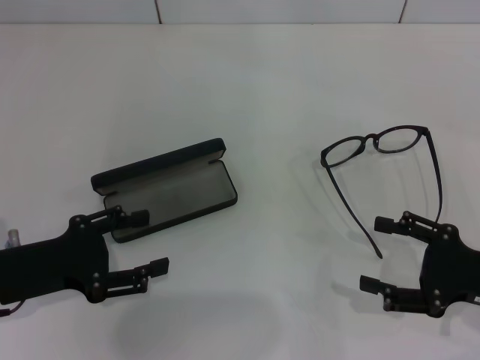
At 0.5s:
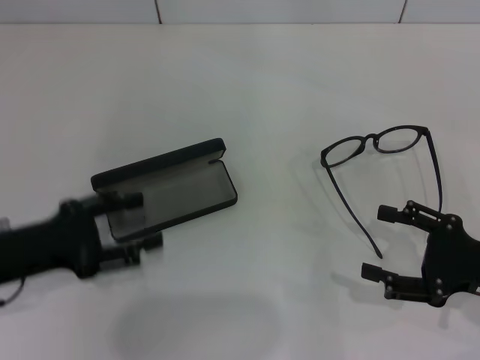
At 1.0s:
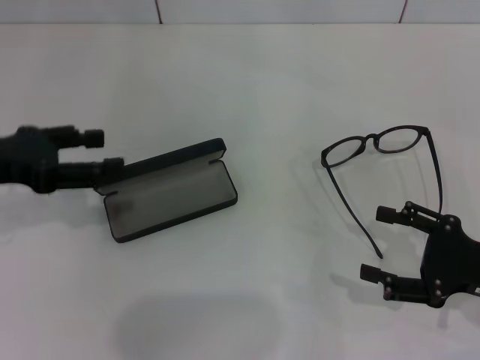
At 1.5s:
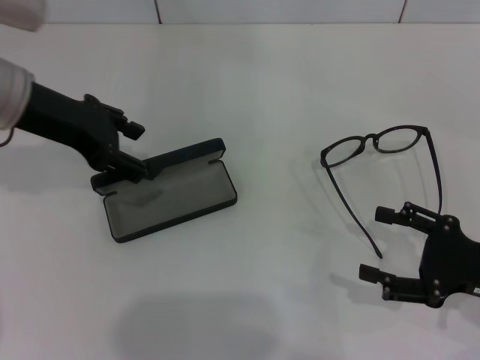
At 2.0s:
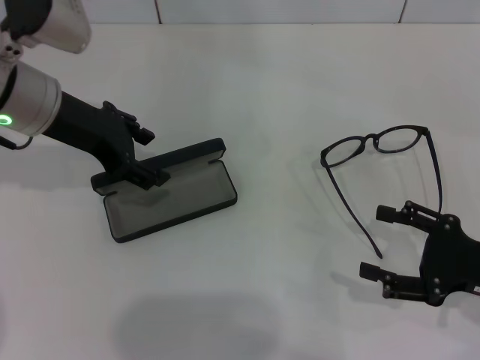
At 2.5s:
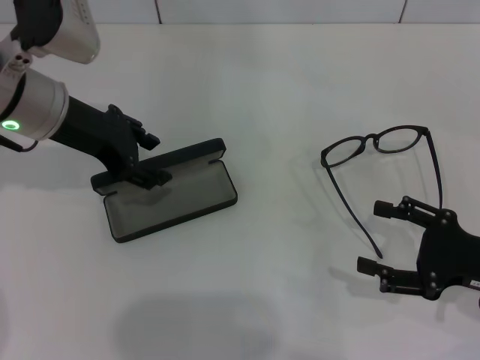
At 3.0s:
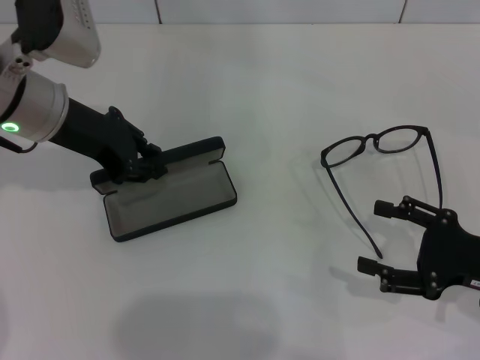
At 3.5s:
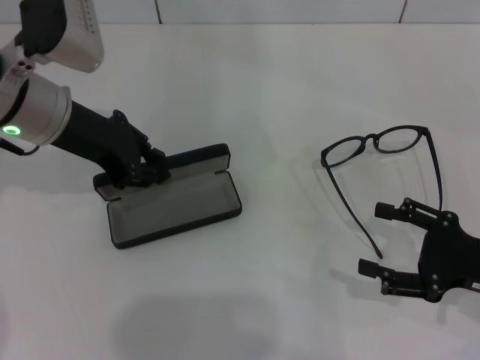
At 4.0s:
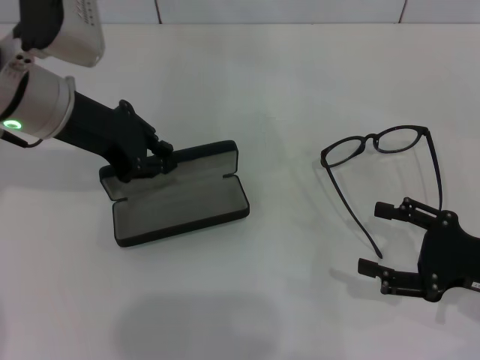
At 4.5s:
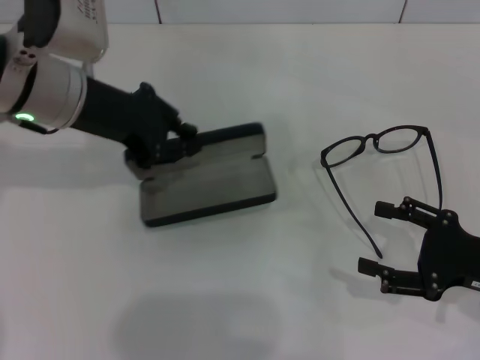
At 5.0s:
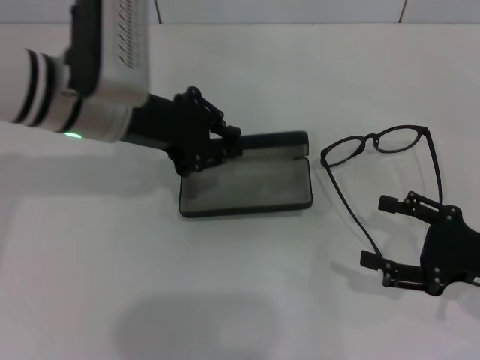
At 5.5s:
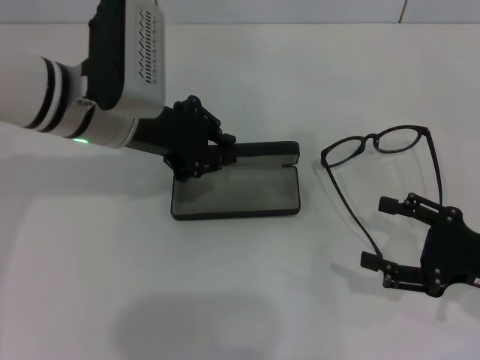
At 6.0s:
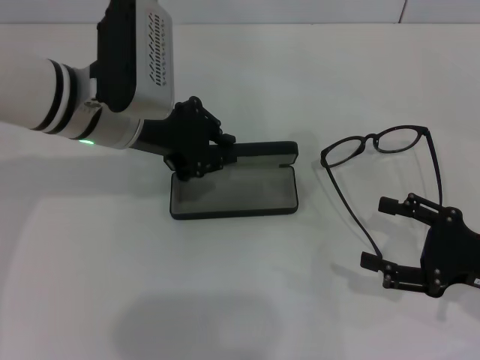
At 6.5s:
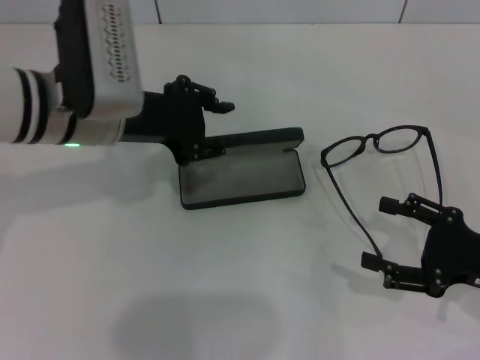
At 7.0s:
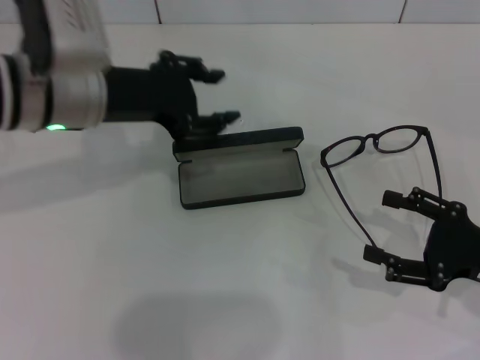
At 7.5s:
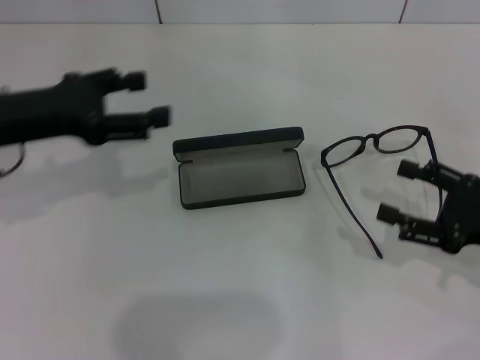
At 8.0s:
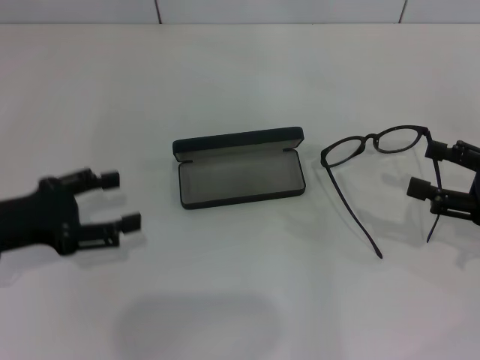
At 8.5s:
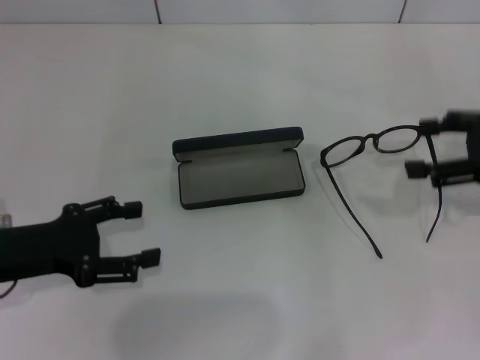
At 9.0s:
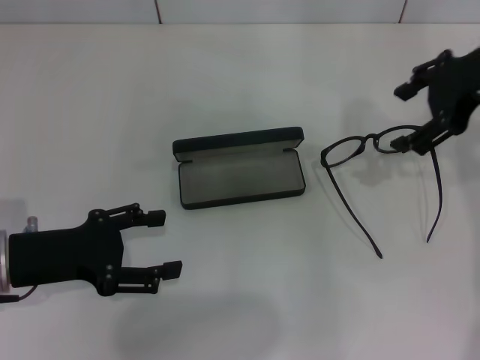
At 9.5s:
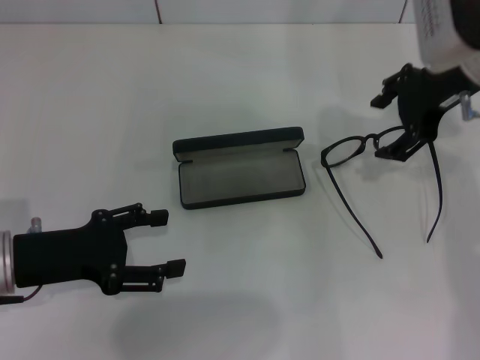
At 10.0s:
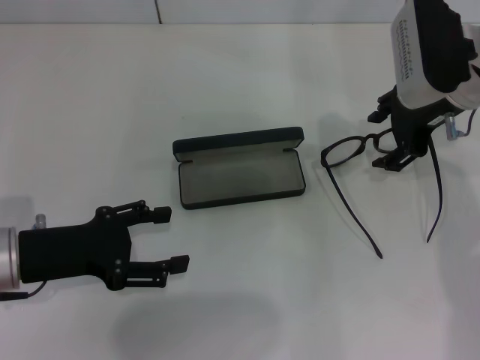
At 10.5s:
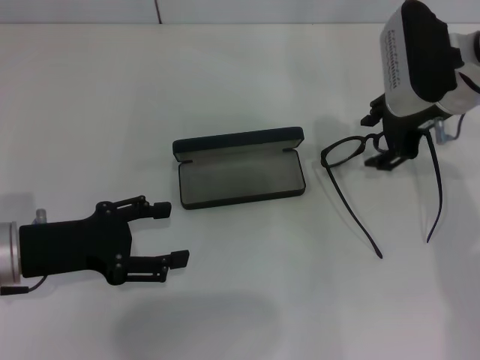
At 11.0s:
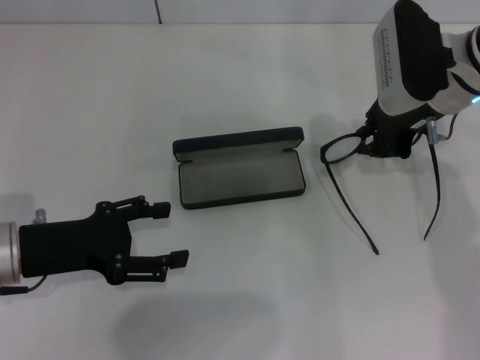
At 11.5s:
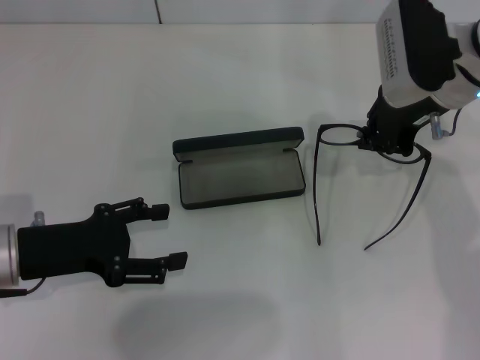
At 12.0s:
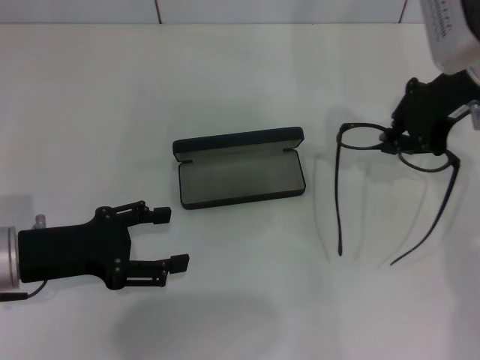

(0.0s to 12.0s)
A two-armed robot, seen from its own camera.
Step, 0.0s - 3.0s: Grab the glasses case with your left hand.
Step, 3.5s - 6.5s: Place the glasses case in the center of the table with your left hand.
Step, 7.0s - 11.0s: Grab the eyeglass frame with your right hand.
0.0s - 2.0s: The left gripper goes roughly 20 cm forward, upward and to the right.
2.0s - 4.0s: The left gripper closes up.
4.0s - 6.0s: The left gripper heads to the right, covering approximately 5 cm.
6.0s - 8.0s: The left gripper shifts roughly 20 cm to the left, backward and downward, and opens; the right gripper ends up approximately 5 cm from where it was.
8.0s - 10.0s: The right gripper goes approximately 20 cm to the left, forward and upward.
10.0s - 12.0s: The right gripper closes up.

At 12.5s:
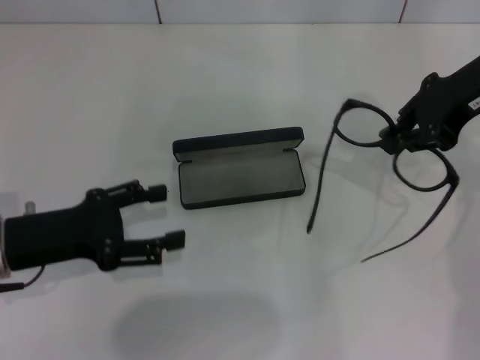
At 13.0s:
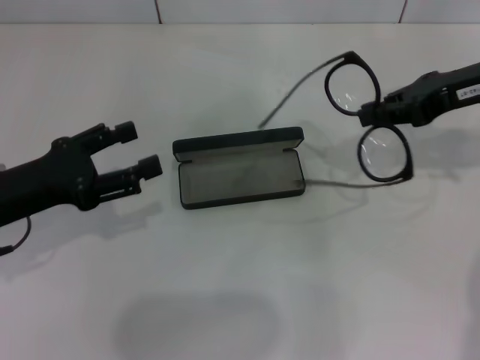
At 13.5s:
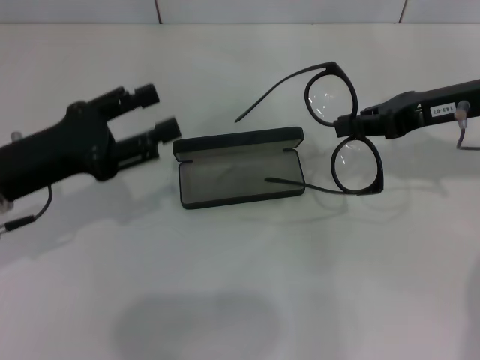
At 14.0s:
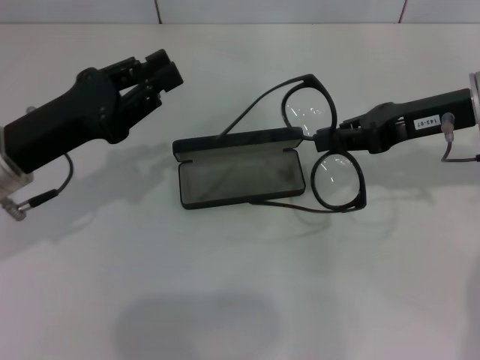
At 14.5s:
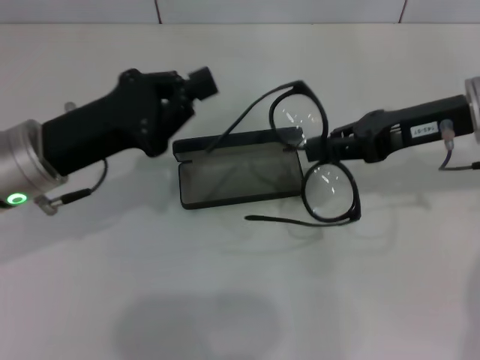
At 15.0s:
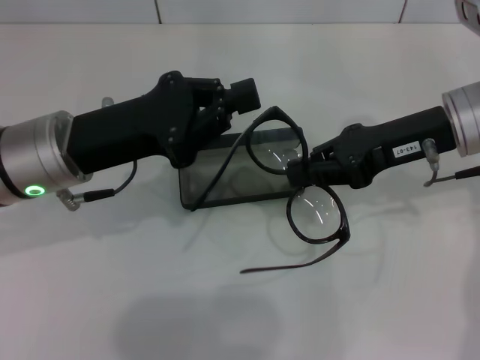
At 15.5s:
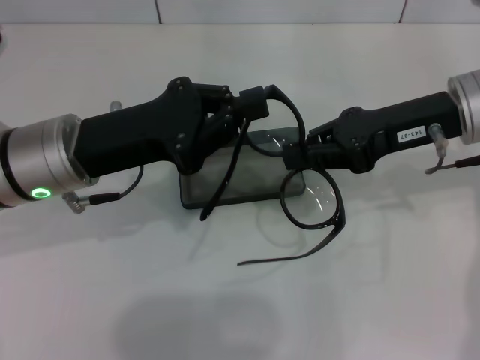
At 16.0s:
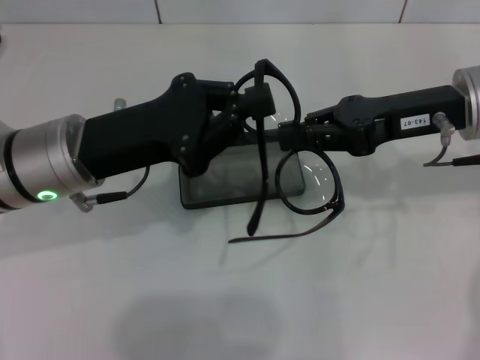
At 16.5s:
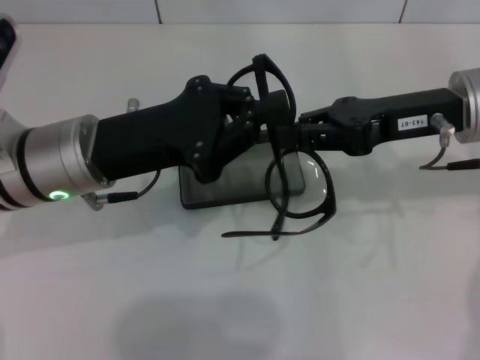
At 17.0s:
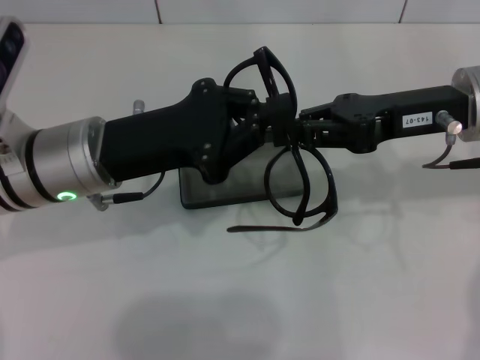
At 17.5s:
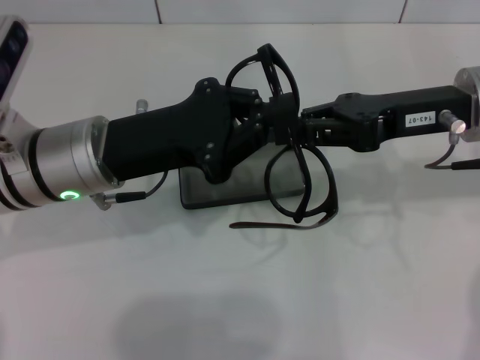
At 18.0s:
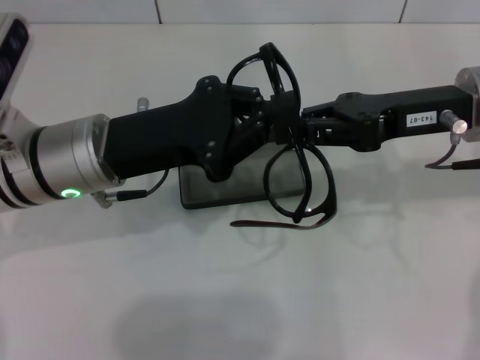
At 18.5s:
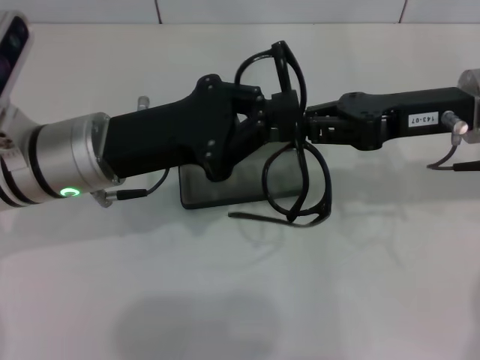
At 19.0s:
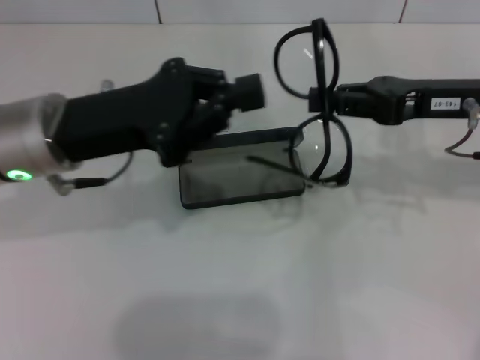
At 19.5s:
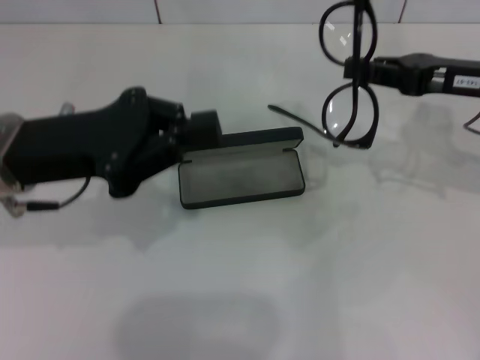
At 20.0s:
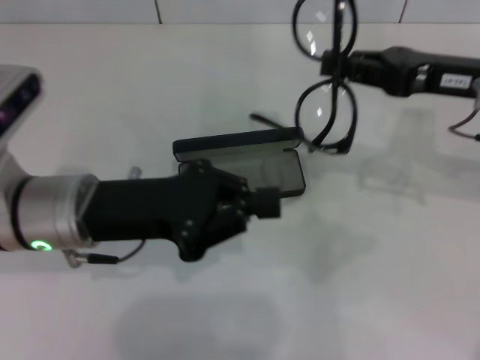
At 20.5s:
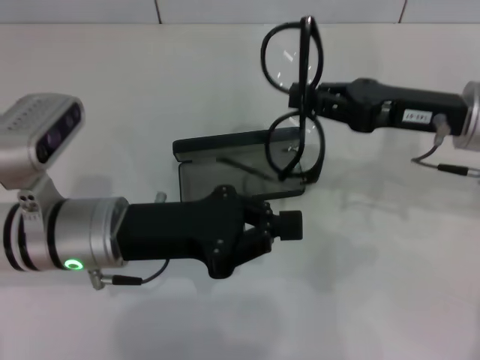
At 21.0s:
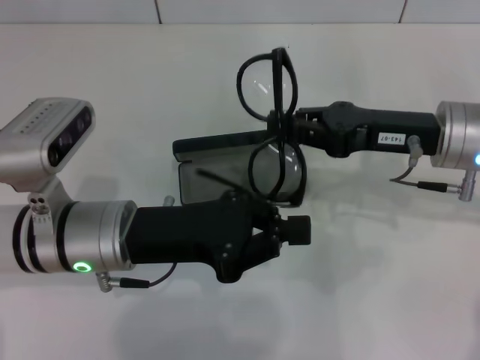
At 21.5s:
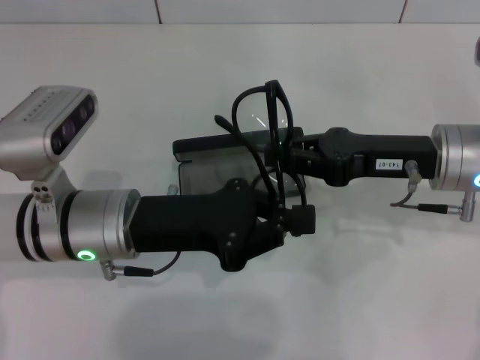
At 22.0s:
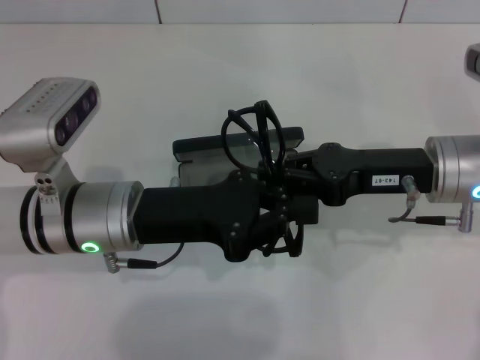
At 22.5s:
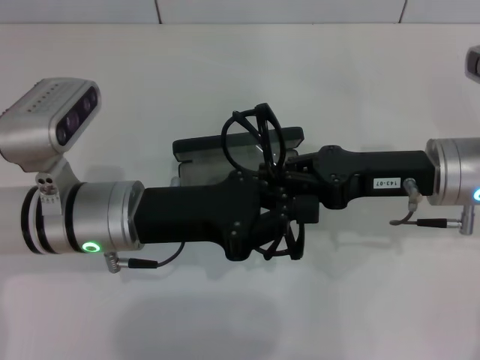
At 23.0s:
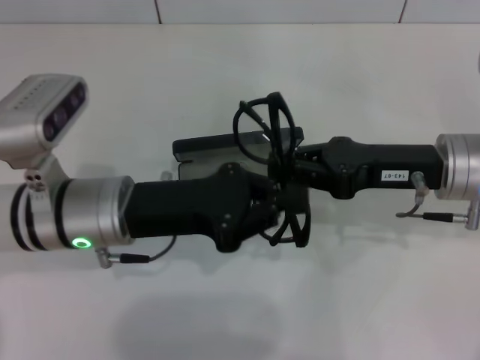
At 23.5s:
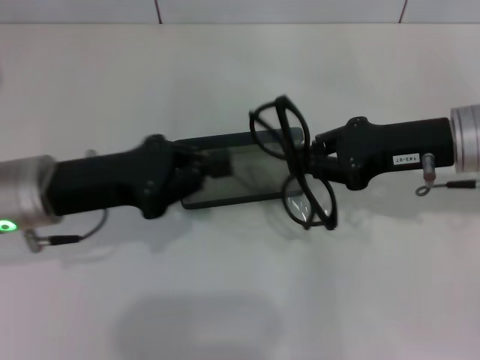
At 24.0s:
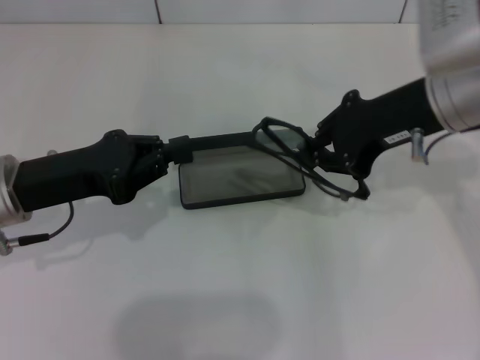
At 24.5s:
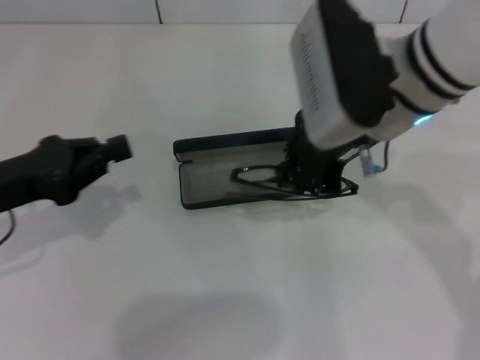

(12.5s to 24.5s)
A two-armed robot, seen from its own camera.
Step, 12.5s - 22.5s: Fold the frame with your left hand.
12.5s - 14.5s: The left gripper travels to the right by roughly 5 cm, and closes its fingers. Meanwhile the right gripper travels downward by approximately 5 cm.
16.5s - 18.5s: Neither gripper changes place.
18.5s - 20.5s: The left gripper shifts by approximately 5 cm.
22.5s - 24.5s: The left gripper goes about 15 cm to the left; the right gripper goes some 15 cm to the left and upward.

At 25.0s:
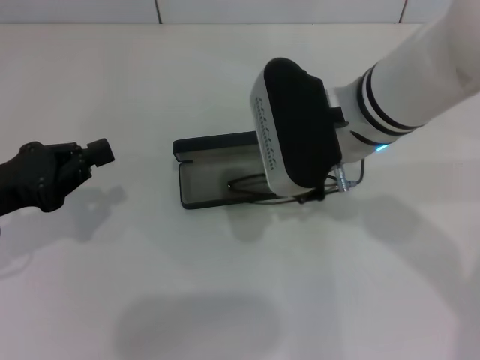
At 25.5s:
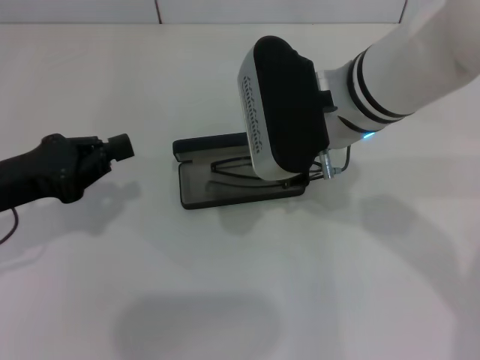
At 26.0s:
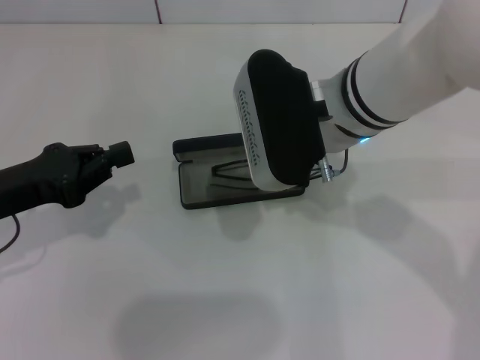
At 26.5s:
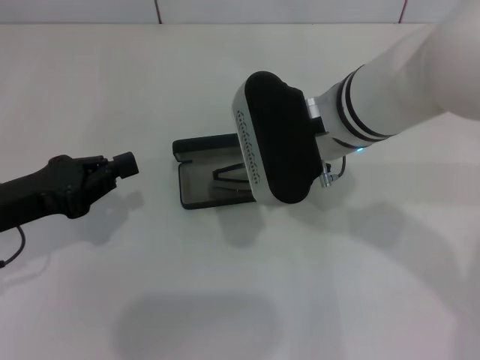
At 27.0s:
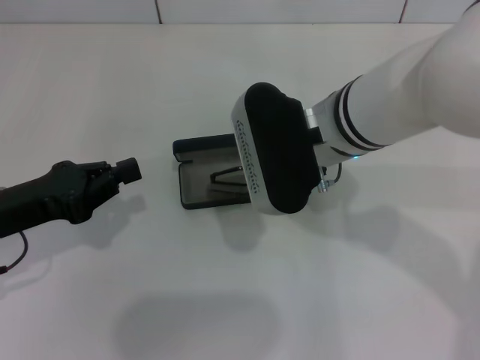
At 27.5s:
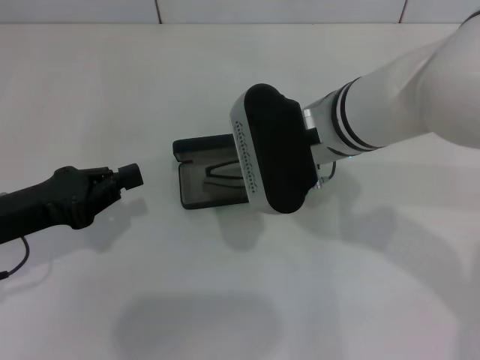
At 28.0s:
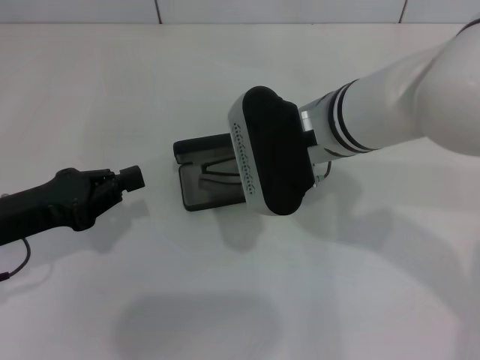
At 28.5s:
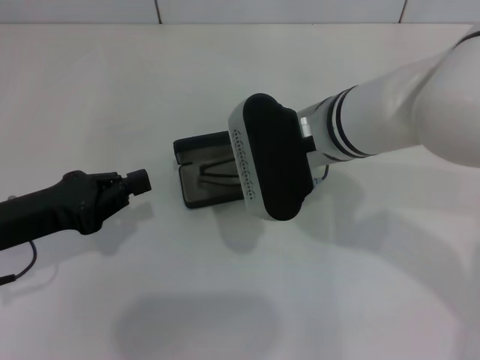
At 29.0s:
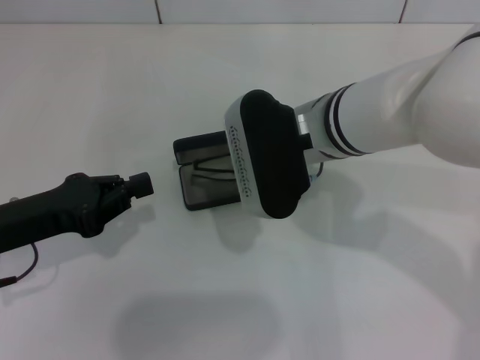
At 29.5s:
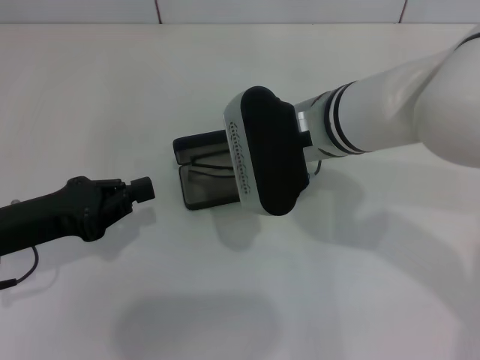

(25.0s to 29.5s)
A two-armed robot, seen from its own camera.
25.0s - 29.5s: The grippers move only a little.
